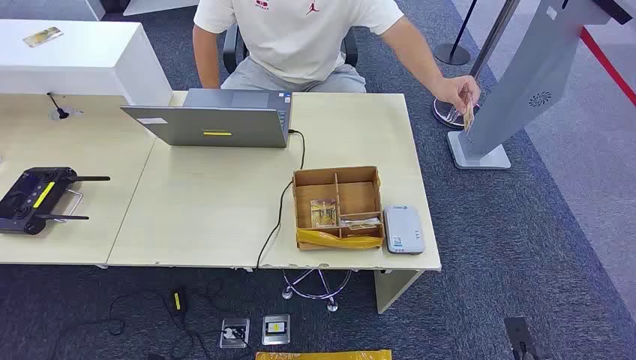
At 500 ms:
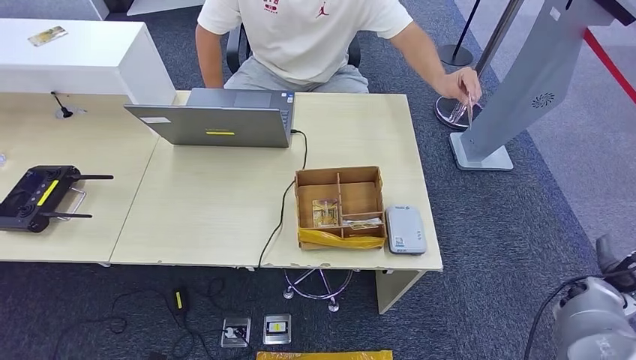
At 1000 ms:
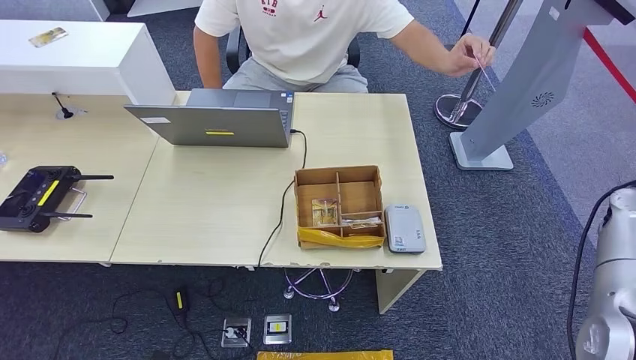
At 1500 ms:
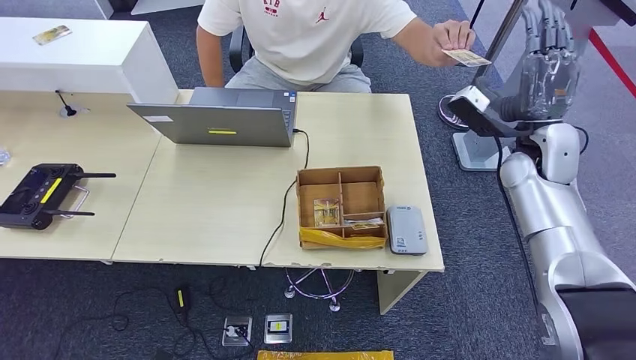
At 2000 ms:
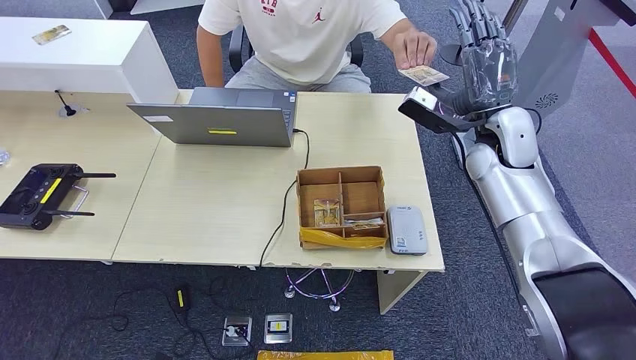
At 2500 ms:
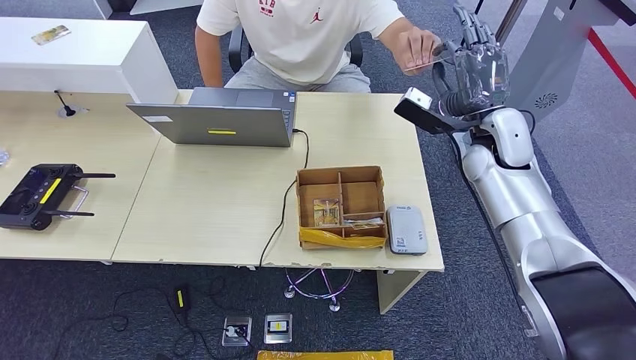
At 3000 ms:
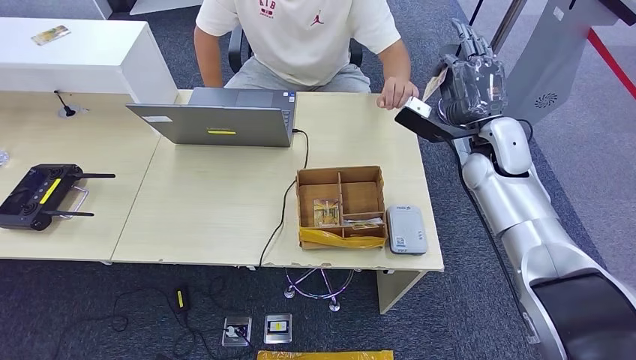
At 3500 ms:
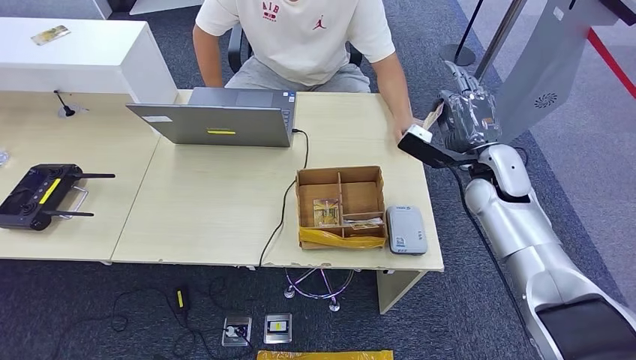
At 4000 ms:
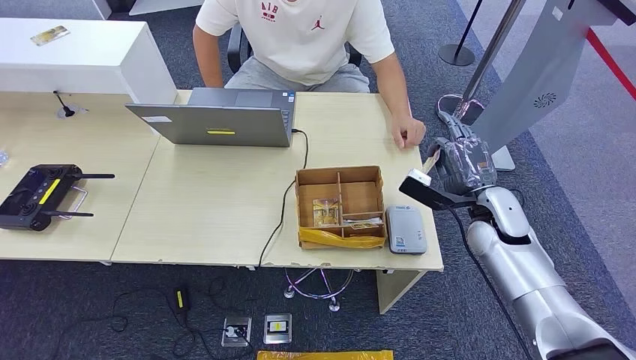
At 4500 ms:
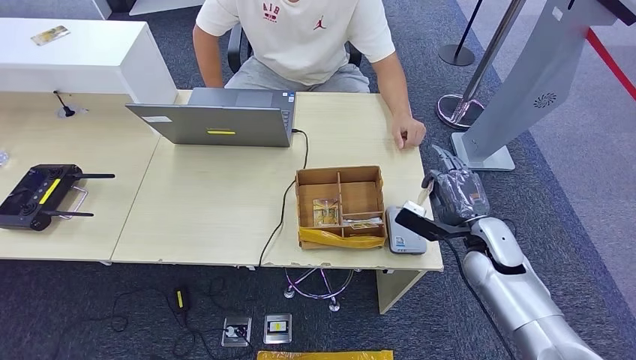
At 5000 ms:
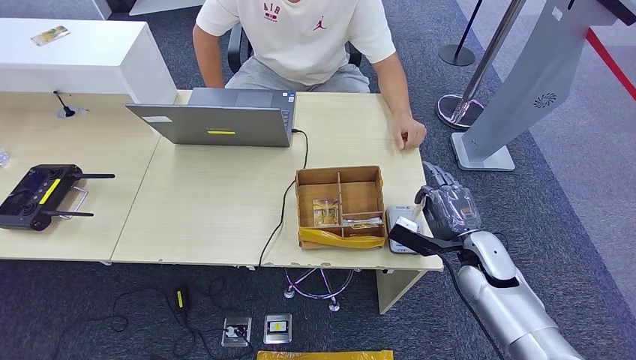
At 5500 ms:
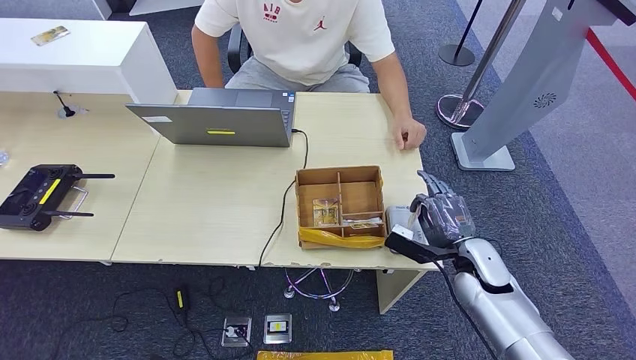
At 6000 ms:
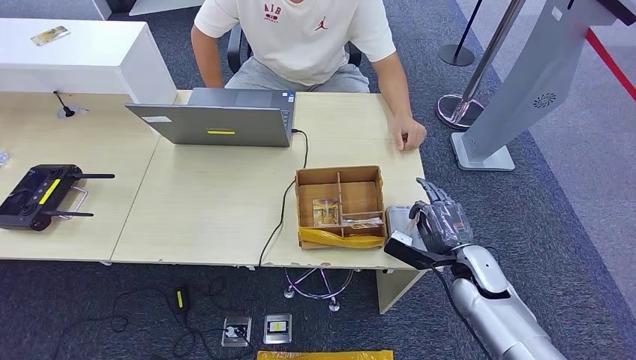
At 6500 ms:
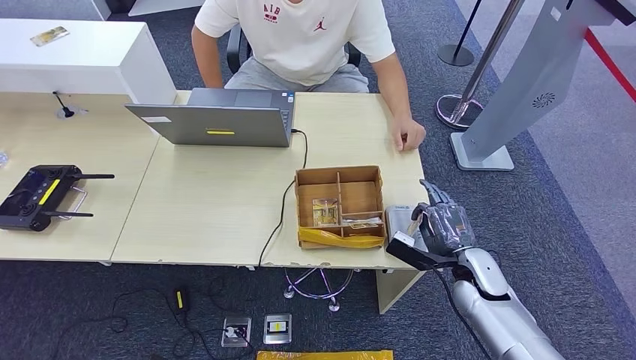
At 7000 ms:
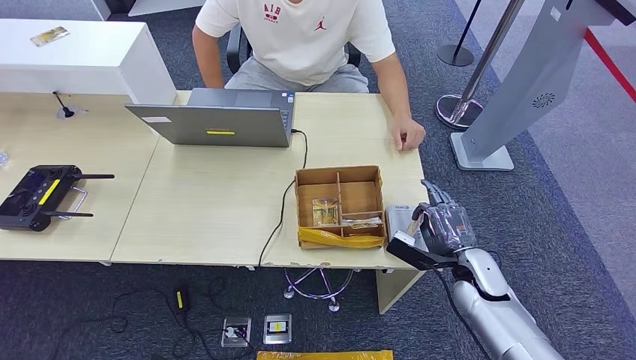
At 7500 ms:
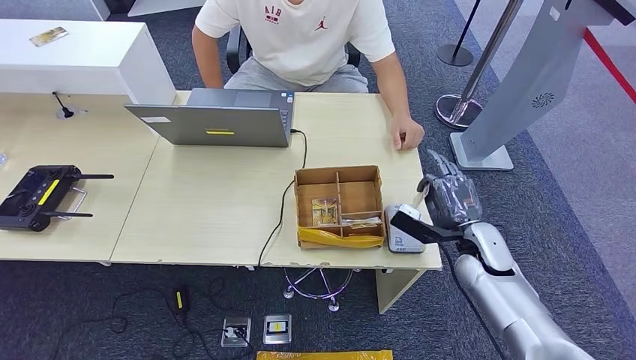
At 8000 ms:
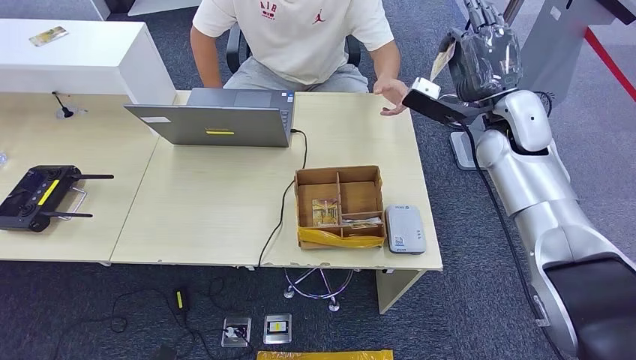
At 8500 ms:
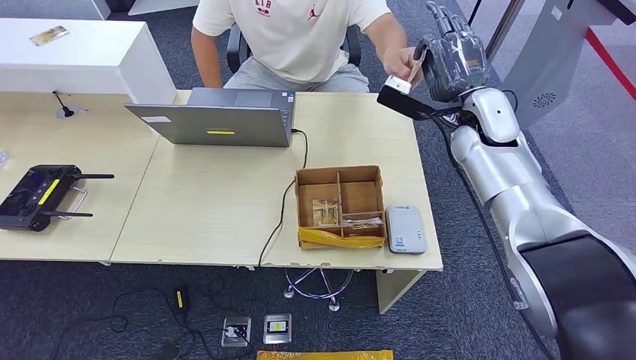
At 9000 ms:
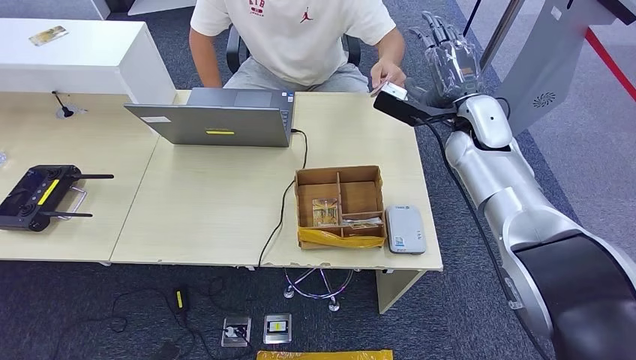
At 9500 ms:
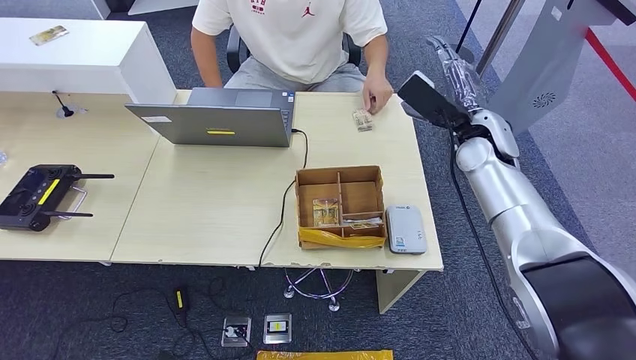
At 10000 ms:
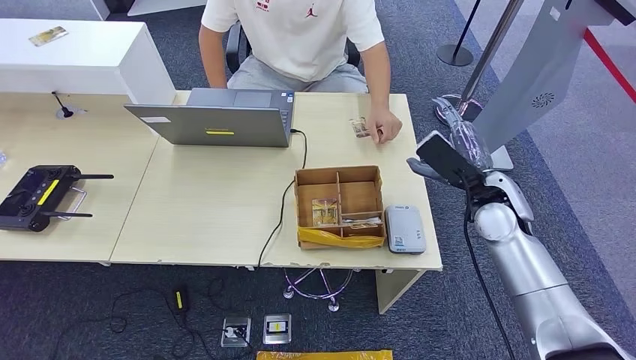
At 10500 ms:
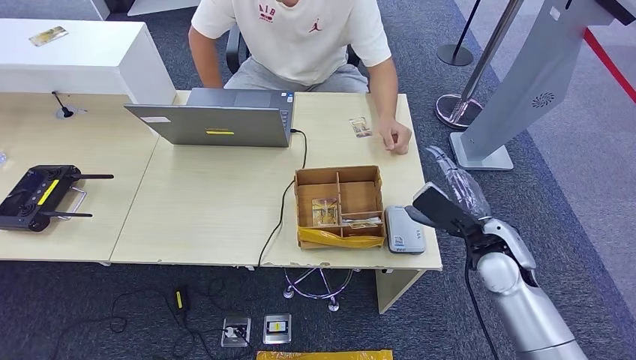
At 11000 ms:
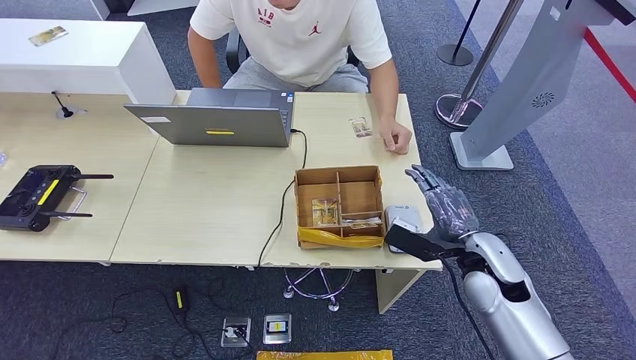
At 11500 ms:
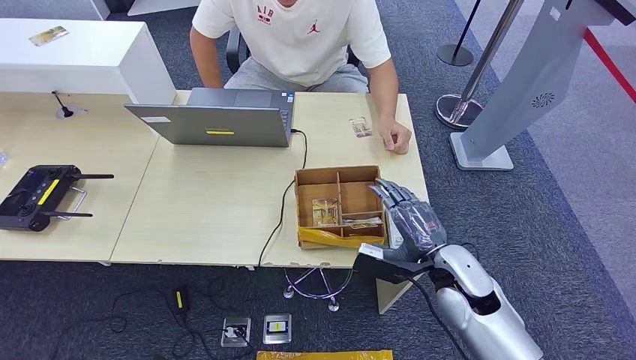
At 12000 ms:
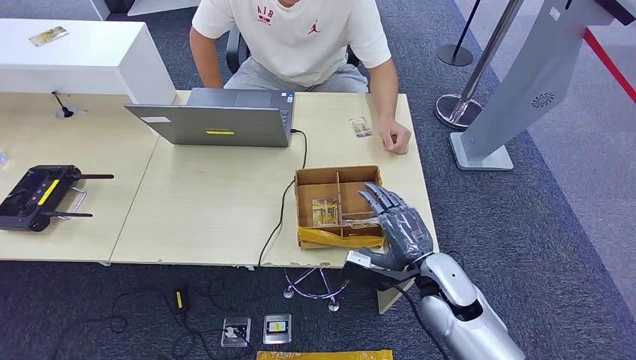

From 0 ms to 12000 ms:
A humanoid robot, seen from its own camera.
Step, from 0 ms to 3000 ms: Take the ID card from the person's hand.
Step, from 3500 ms to 5500 ms: Place the ID card on the card reader.
Step, from 6500 ms to 9000 ms: Hand the ID card to the person.
From 2000 ms to 4000 ms: The right hand heads downward and backward, covering roughly 15 cm.
From 4000 ms to 6000 ms: The right hand goes approximately 10 cm downward and backward.
From 6000 ms to 8000 ms: The right hand shifts some 30 cm upward and forward.
From 8000 ms to 10000 ms: The right hand is displaced downward and backward by roughly 10 cm.
From 10000 ms to 12000 ms: The right hand goes roughly 15 cm downward, backward and to the left.

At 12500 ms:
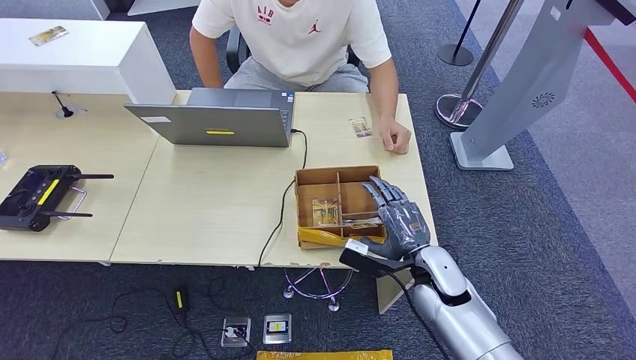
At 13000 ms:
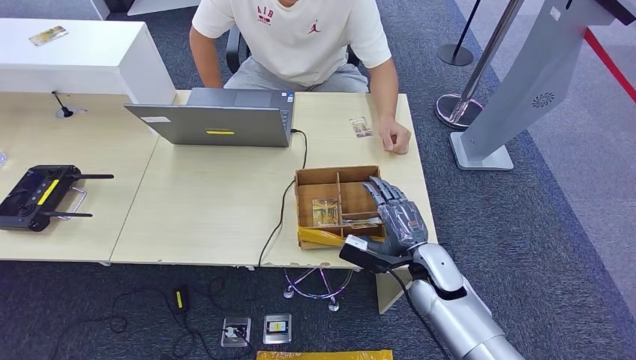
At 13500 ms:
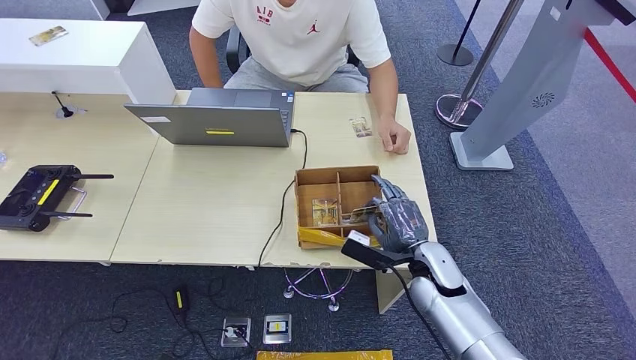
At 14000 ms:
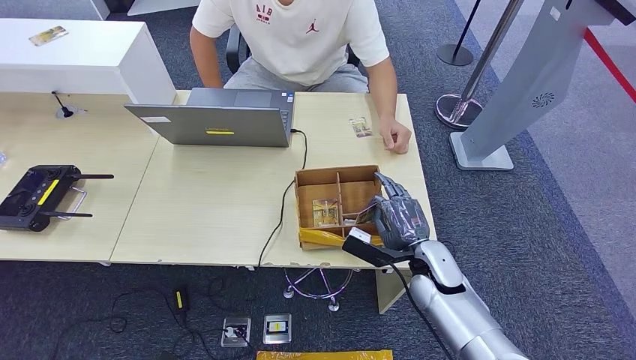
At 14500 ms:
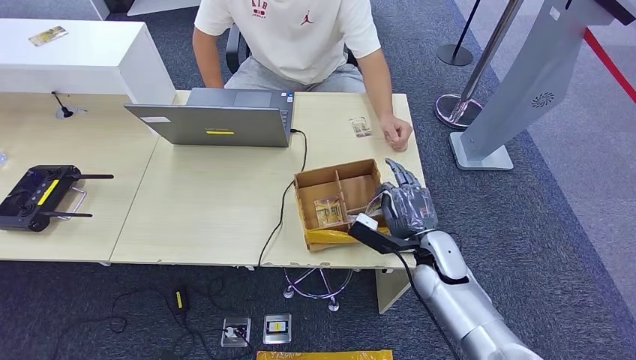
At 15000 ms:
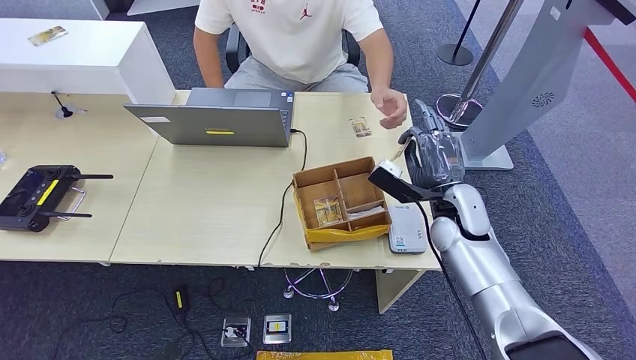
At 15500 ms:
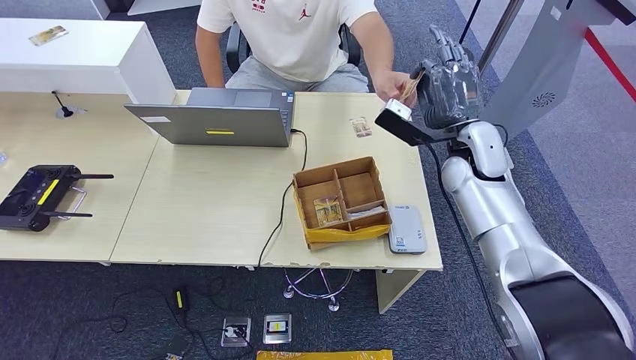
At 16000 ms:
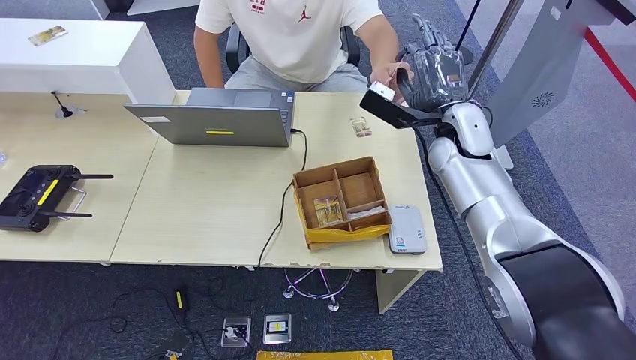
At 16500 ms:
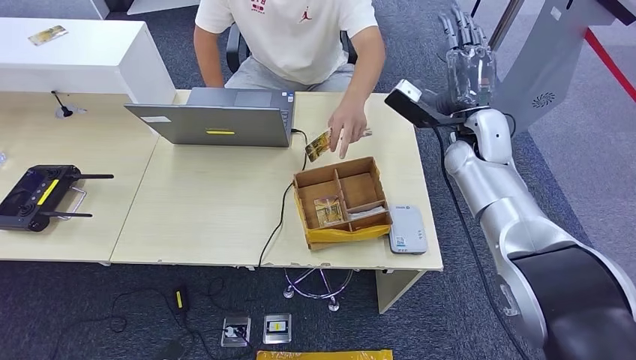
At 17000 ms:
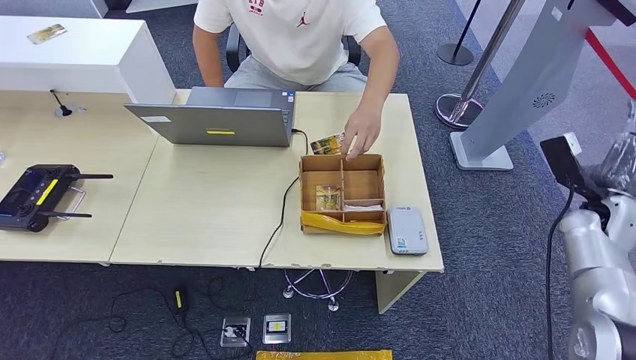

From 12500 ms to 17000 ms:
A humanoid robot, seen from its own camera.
Step, from 12500 ms to 14500 ms: Pick up the room key from the key card box.
Step, from 15000 ms to 17000 ms: Hand the room key to the person.
From 12500 ms to 14500 ms: The hands make only small movements.
From 14500 ms to 17000 ms: The right hand moves to the right, approximately 25 cm.
